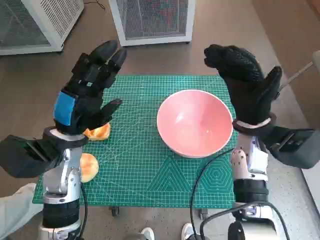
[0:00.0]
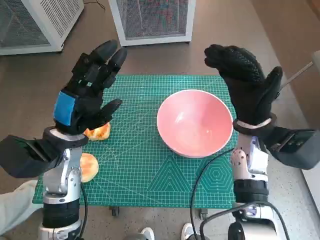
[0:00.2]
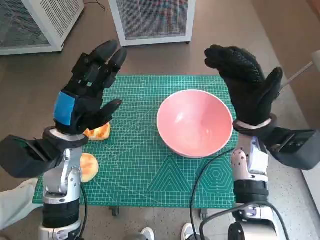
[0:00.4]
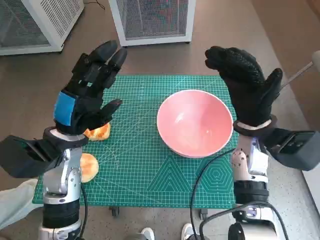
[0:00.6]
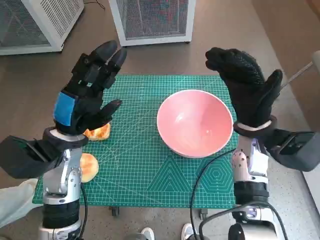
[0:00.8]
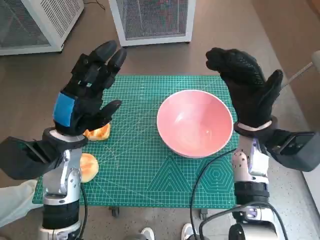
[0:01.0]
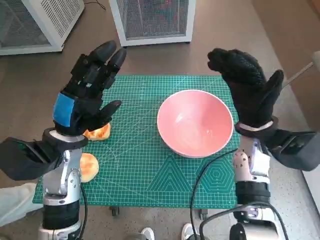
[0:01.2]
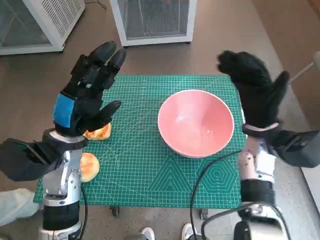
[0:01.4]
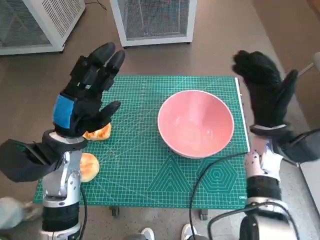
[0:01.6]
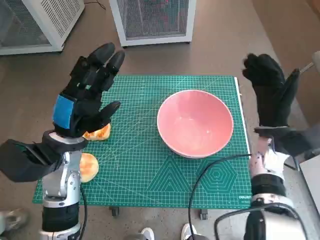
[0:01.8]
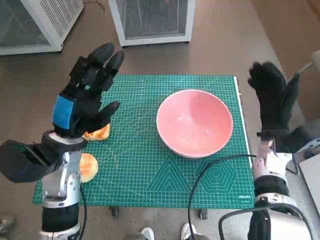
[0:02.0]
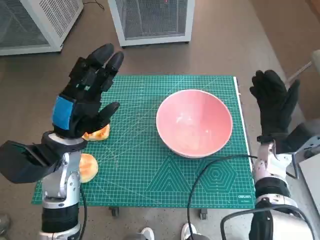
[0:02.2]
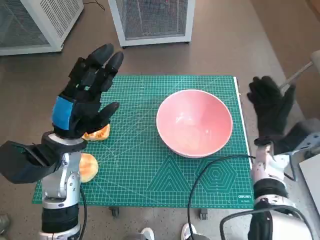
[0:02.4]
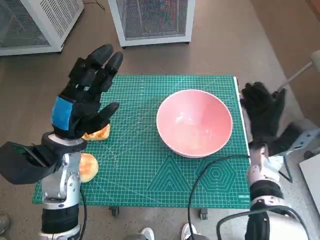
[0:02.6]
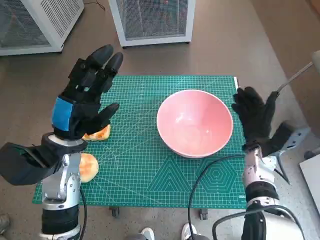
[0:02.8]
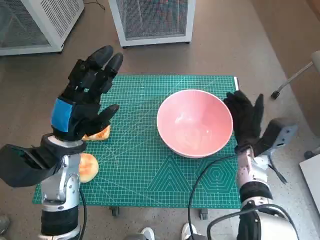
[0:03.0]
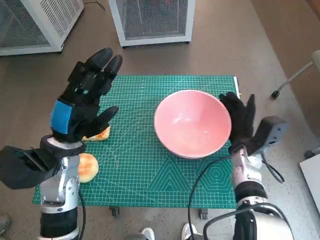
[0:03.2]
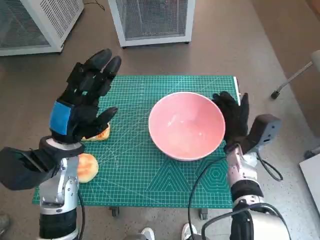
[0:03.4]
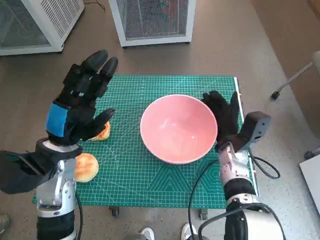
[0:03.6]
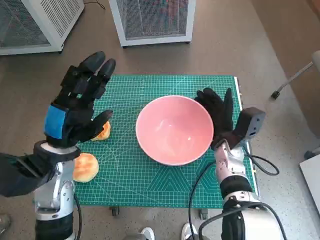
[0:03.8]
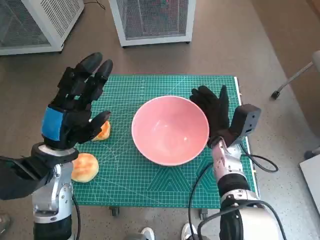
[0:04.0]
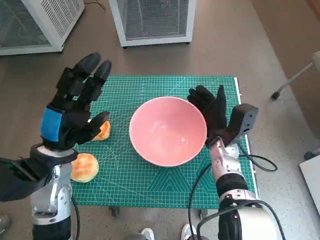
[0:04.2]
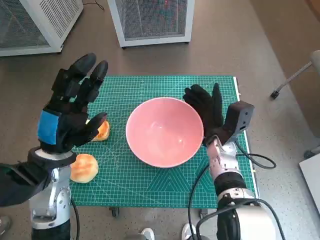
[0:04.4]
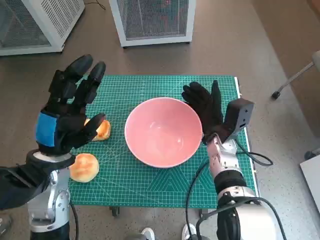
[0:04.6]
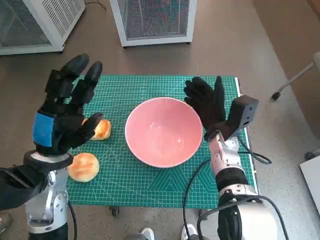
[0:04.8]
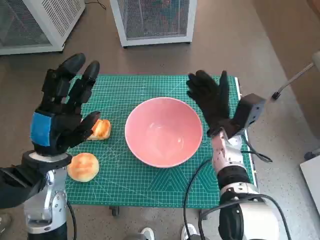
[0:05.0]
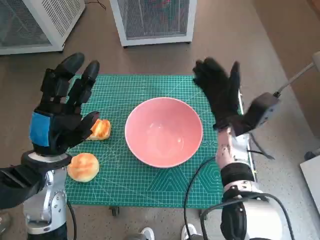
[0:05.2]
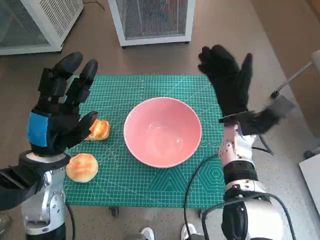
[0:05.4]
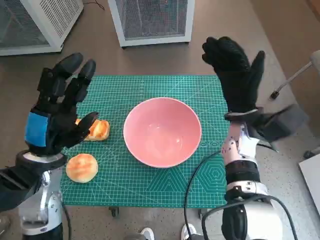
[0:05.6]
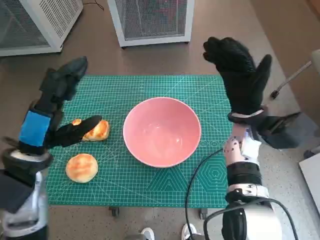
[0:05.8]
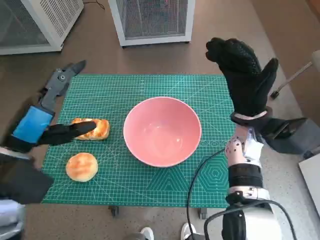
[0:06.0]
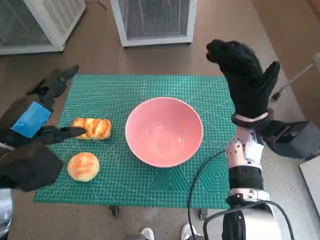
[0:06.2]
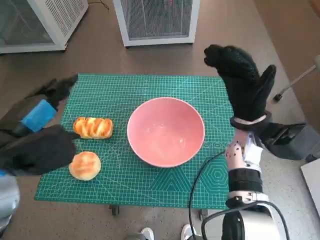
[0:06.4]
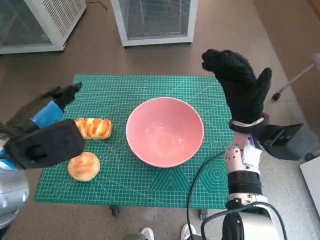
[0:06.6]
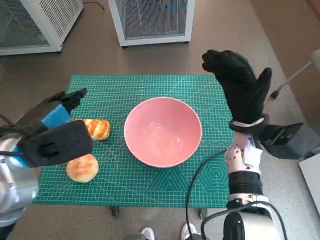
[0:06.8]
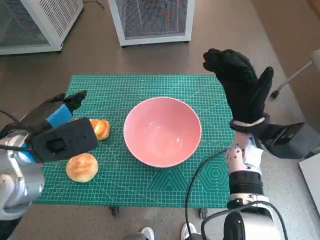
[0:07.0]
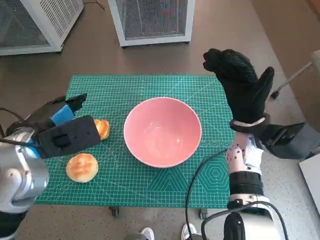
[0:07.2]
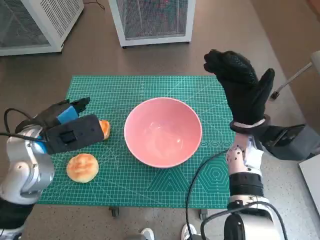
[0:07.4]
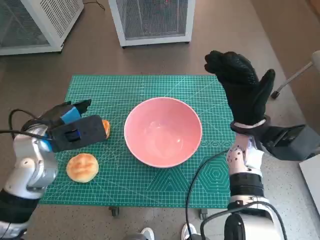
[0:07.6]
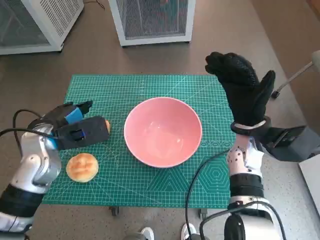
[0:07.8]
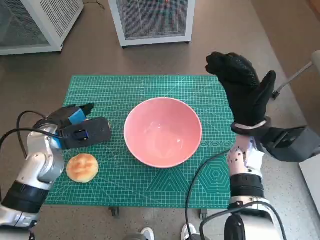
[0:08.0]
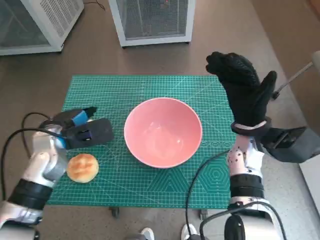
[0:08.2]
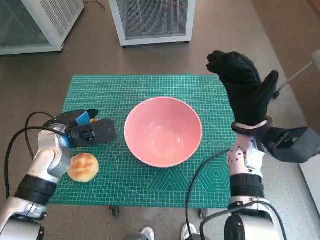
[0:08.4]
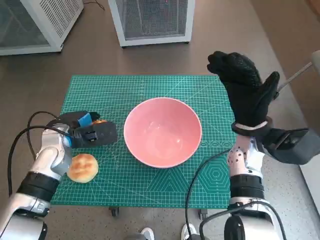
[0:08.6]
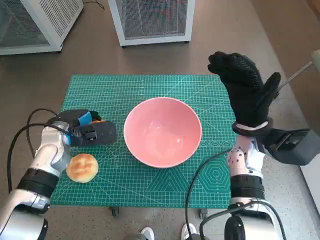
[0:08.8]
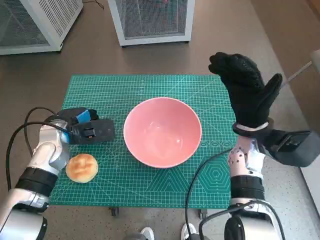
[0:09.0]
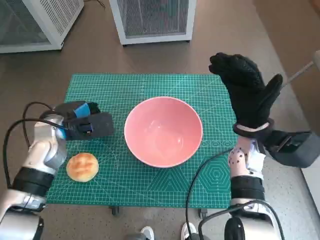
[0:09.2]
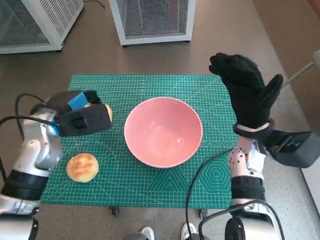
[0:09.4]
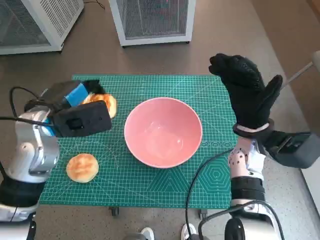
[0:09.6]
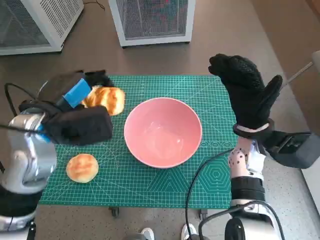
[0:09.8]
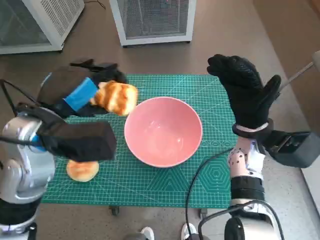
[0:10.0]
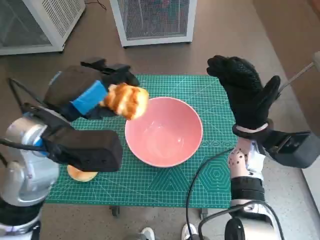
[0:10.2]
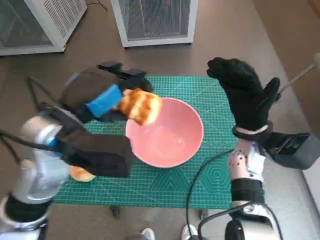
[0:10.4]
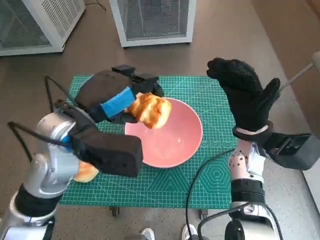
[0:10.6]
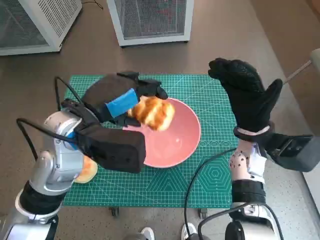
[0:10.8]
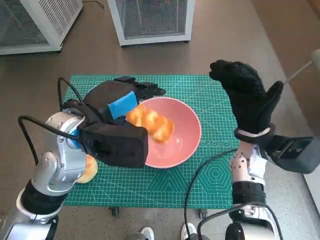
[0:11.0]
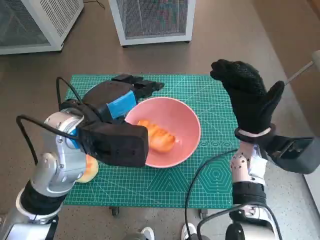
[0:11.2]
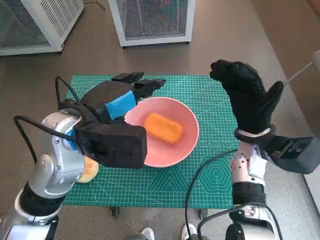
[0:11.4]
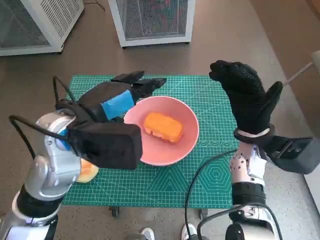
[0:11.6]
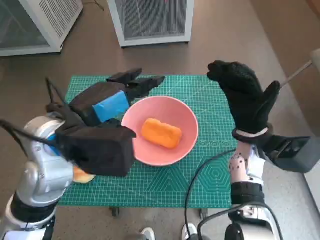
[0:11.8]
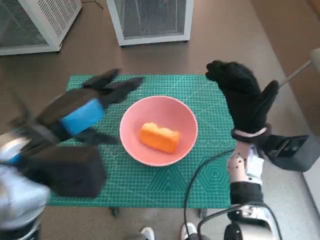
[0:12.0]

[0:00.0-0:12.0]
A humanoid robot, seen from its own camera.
Task of the whole recording: Push the bowl into the center of the table and put the bread into the bowl.
Step, 0:00.0 to 0:05.0: Move the pink bowl to the center of table with right hand.
Step, 0:05.2 to 0:08.8: Grasp the long bread with left hand.
Step, 0:09.0 to 0:11.0: Place the long bread in pink bowl with left hand.
0:01.6 to 0:03.0: The right hand shifts roughly 10 cm downward.
0:03.0 to 0:04.4: The right hand goes about 10 cm to the left.
0:04.4 to 0:06.0: The left hand ends up roughly 5 cm from where it was. Meanwhile the right hand shifts approximately 10 cm upward.
0:06.0 to 0:07.6: The left hand heads forward, covering approximately 5 cm.
0:07.6 to 0:09.0: The left hand heads downward, covering some 5 cm.
0:09.0 to 0:10.4: The left hand shifts roughly 15 cm upward, to the right and backward.

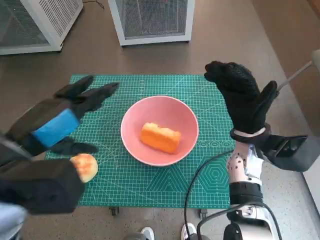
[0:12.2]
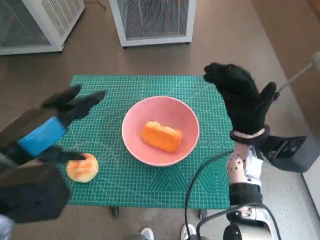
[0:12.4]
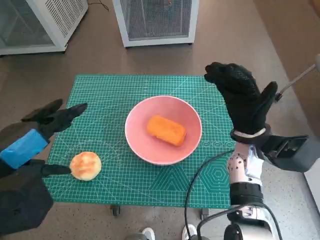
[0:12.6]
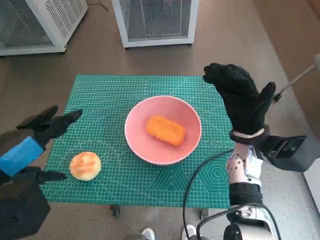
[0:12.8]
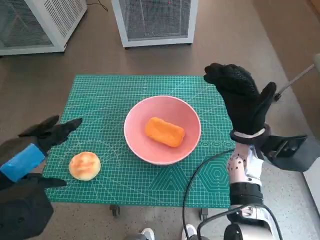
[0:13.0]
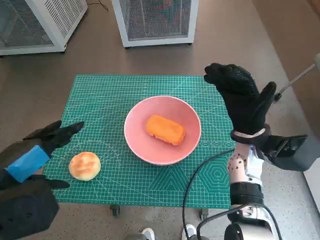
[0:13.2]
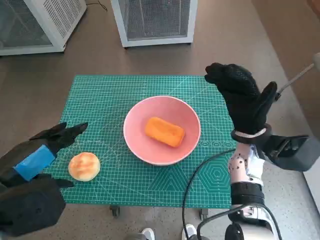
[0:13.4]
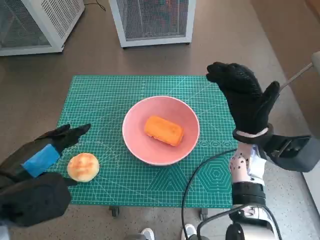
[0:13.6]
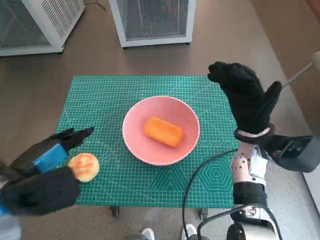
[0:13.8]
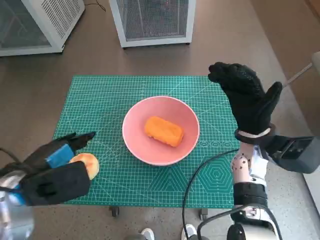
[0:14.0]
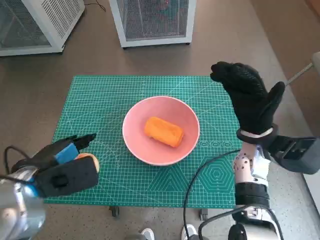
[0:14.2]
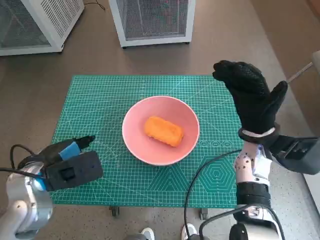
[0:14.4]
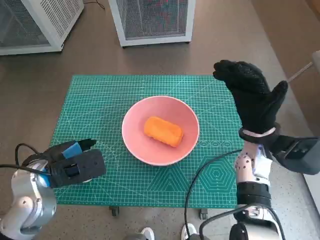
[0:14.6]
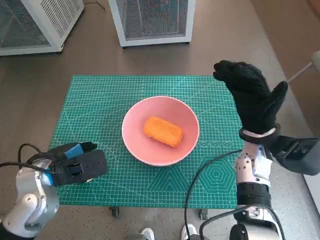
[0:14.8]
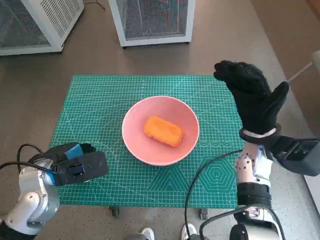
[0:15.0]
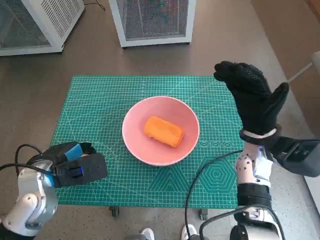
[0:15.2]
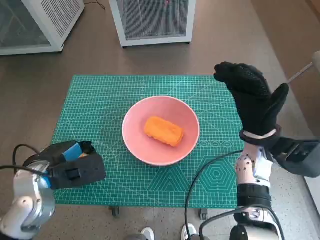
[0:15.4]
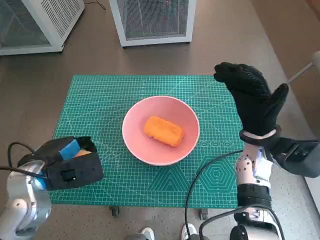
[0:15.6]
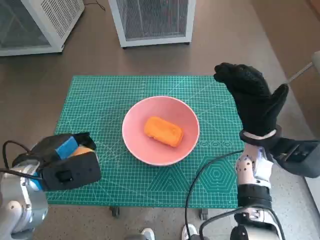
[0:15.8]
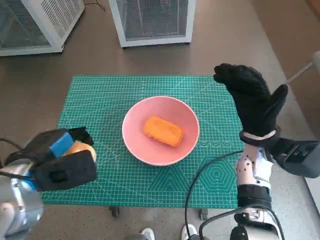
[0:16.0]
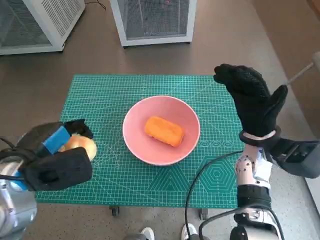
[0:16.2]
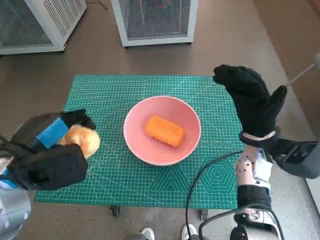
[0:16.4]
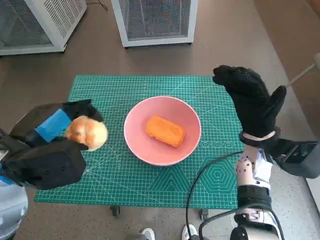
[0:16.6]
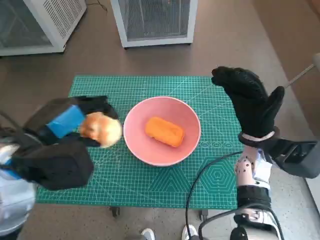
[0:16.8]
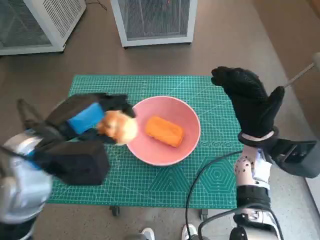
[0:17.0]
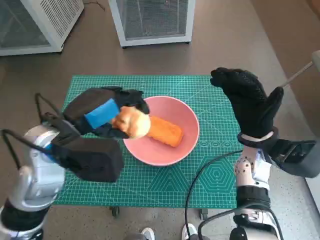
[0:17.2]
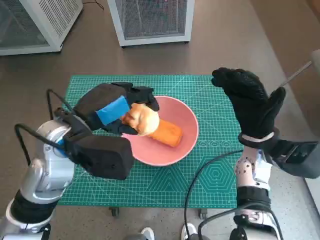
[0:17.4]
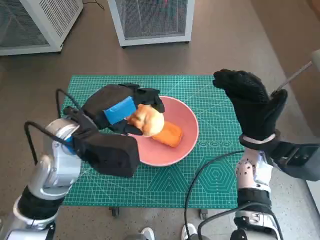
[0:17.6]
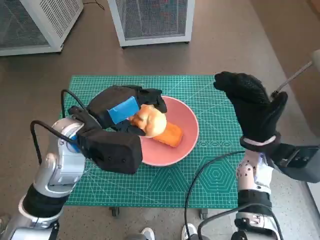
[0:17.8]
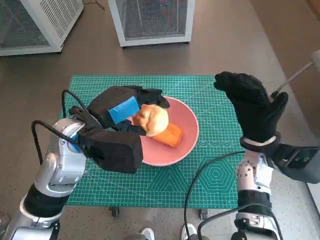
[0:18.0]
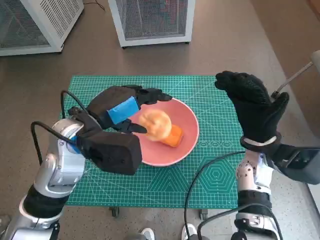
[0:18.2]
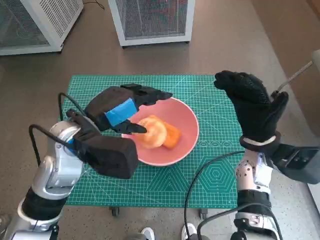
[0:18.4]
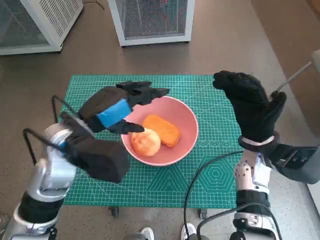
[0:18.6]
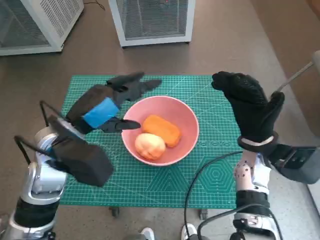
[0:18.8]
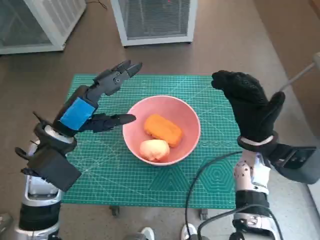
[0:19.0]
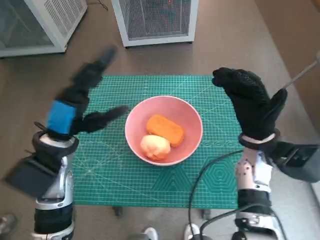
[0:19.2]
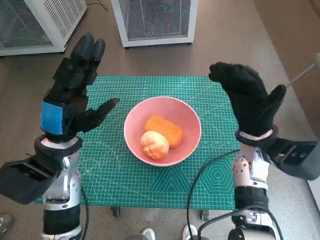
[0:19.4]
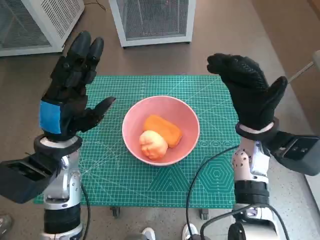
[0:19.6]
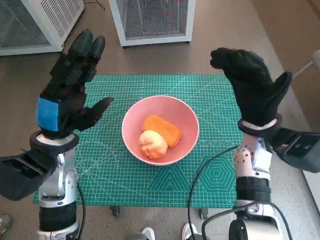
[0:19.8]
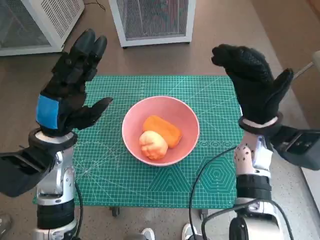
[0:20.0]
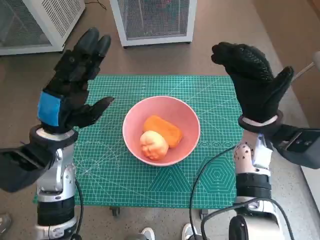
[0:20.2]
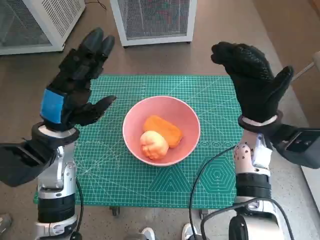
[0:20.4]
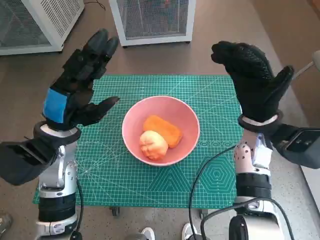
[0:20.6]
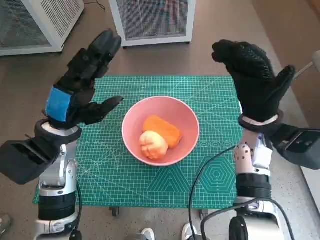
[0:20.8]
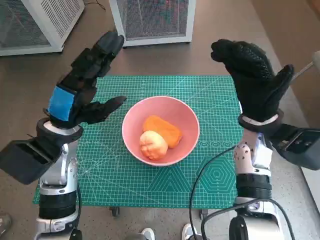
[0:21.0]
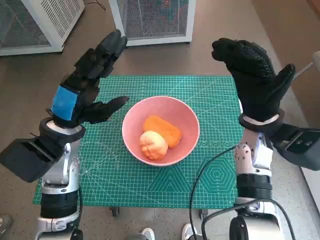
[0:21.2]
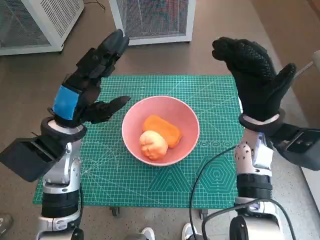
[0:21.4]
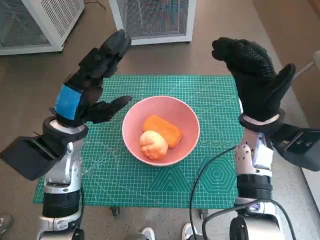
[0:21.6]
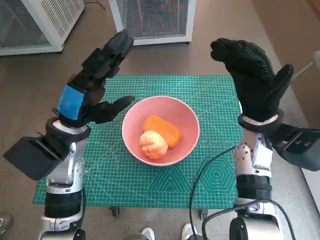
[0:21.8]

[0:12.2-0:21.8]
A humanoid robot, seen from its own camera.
Task of the whole recording: Push the bowl into the center of the table and put the bread into the bowl.
Step, 0:12.2 to 0:15.0: Grasp the round bread with left hand.
Step, 0:15.2 to 0:18.2: Place the round bread in pink bowl with left hand.
0:12.2 to 0:13.8: The left hand moves downward, approximately 5 cm.
0:13.8 to 0:15.4: The left hand travels downward and forward by some 10 cm.
0:15.4 to 0:17.0: The left hand shifts some 10 cm upward.
0:17.0 to 0:18.6: The left hand ends up about 5 cm from where it was.
0:18.6 to 0:20.2: The left hand shifts by approximately 5 cm.
0:20.2 to 0:21.8: The hands make only small movements.
